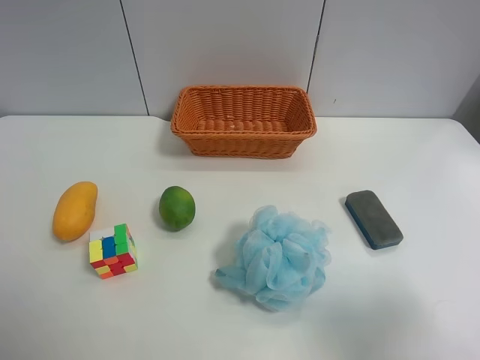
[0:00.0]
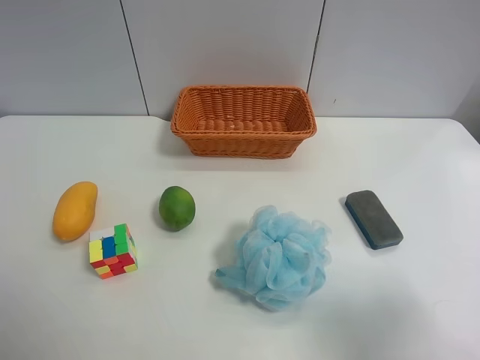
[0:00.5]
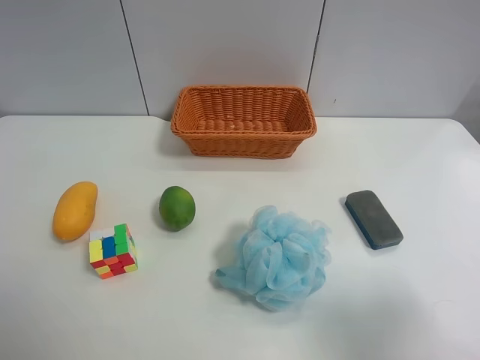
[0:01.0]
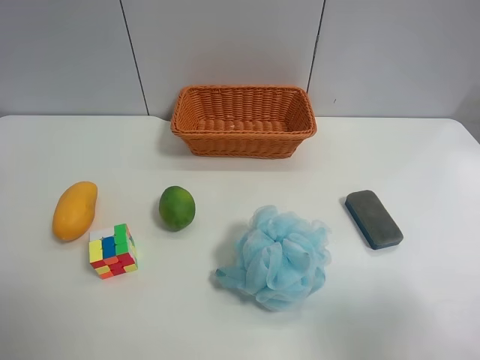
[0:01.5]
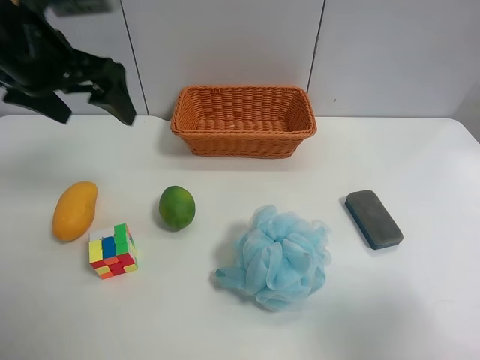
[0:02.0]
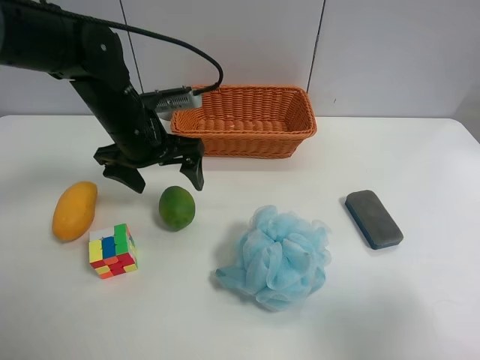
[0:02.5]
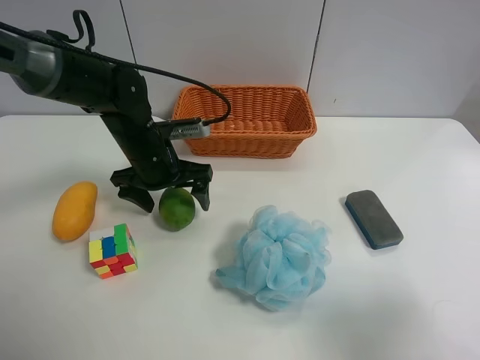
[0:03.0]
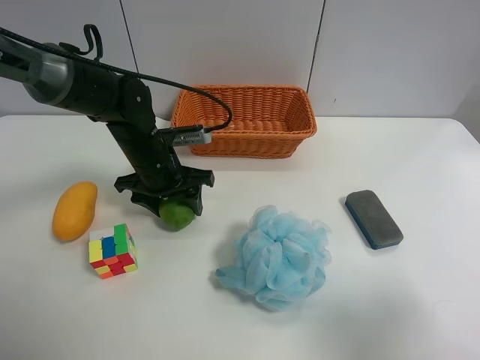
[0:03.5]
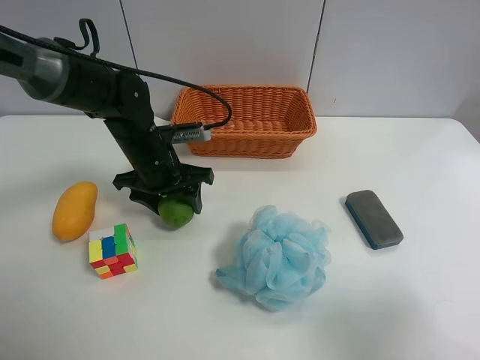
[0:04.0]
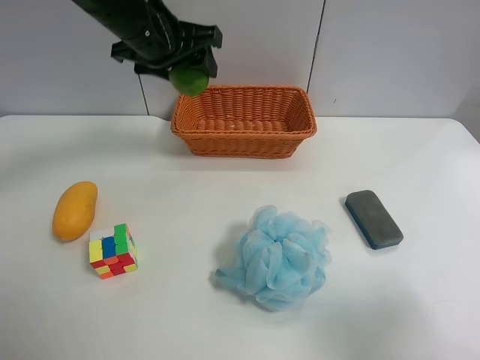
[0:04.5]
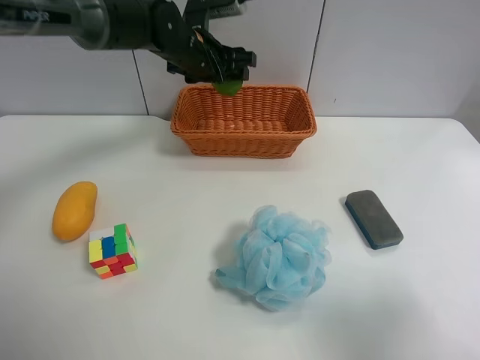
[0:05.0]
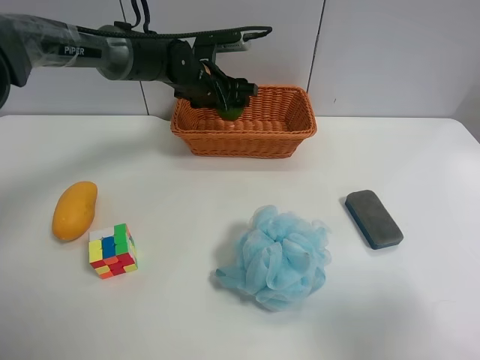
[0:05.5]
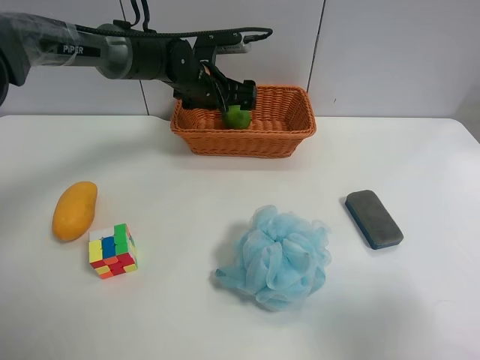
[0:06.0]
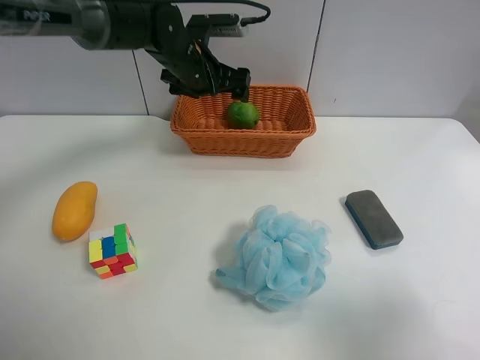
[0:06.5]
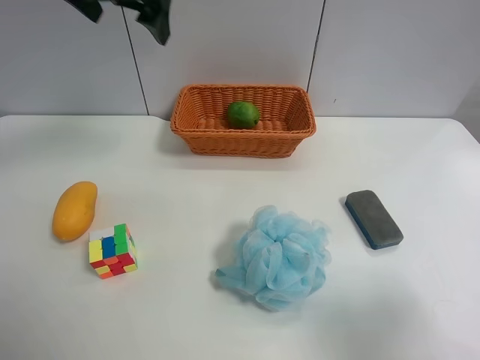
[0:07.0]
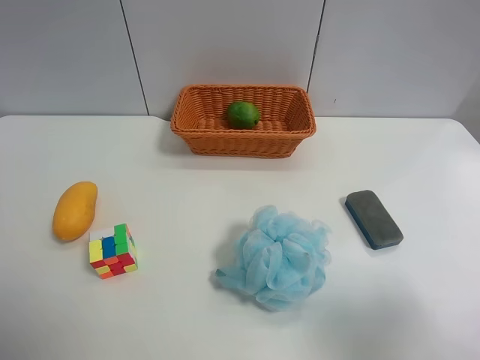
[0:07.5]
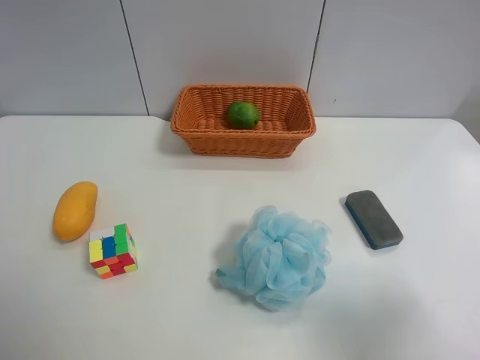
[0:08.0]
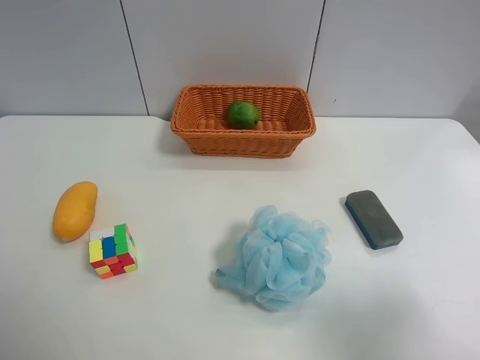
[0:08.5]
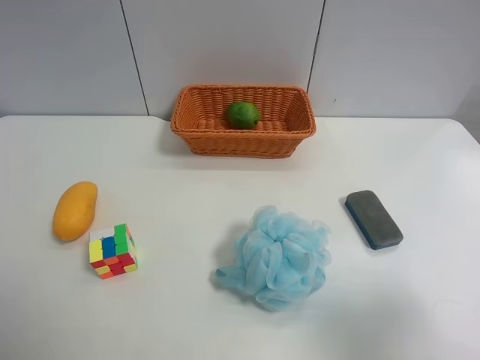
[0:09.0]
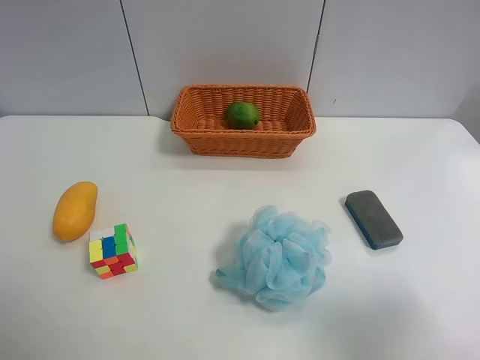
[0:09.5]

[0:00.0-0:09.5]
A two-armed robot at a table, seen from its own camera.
Task of the whole recording: Randomly grab green lemon or mangoes from the table and put them in a basket.
Step, 0:00.0 to 0:03.5: Grasp the Lemon with the left gripper.
Step, 0:04.0 to 0:06.5: Place the Lemon into the basket with the left gripper.
0:00.0 to 0:02.0: The left gripper heads forward, covering approximately 30 cm.
0:02.0 to 0:04.0: The left gripper moves downward and to the right, about 15 cm, and closes.
0:04.0 to 0:05.5: The left gripper shifts some 15 cm forward and to the right, and goes upward and returns, roughly 15 cm each way.
0:05.5 to 0:07.5: The left gripper moves backward, upward and to the left, approximately 50 cm, and opens up.

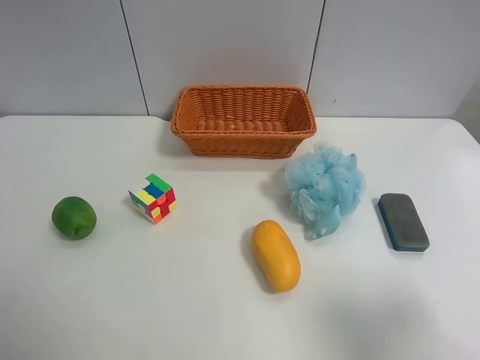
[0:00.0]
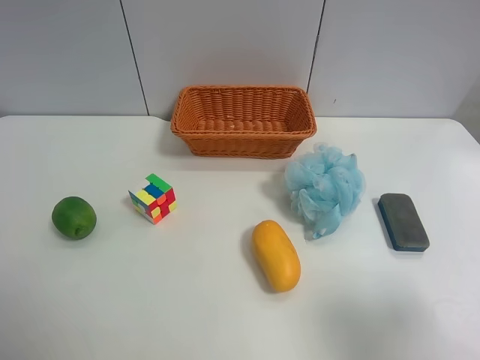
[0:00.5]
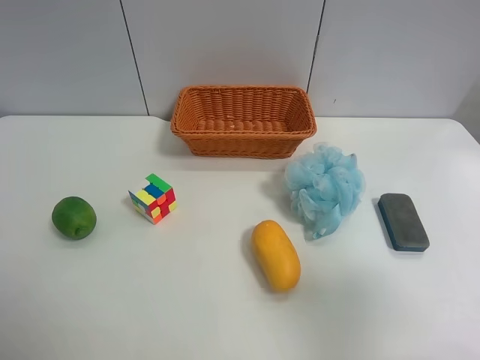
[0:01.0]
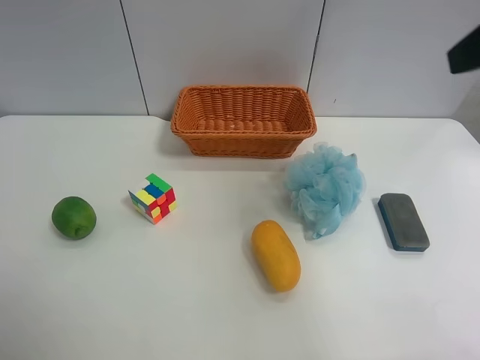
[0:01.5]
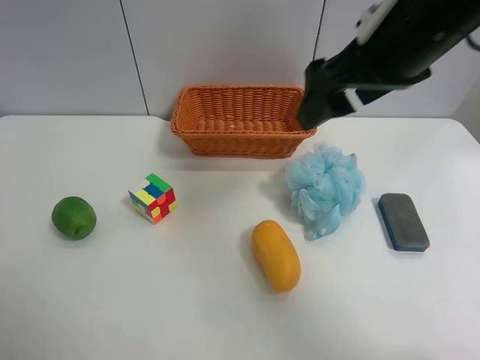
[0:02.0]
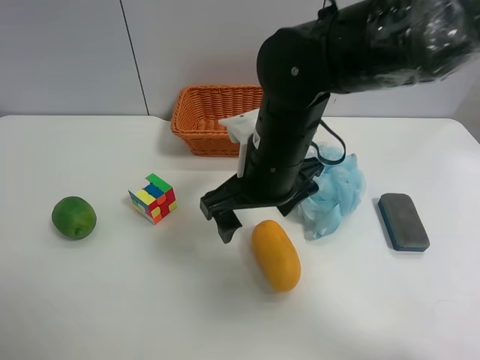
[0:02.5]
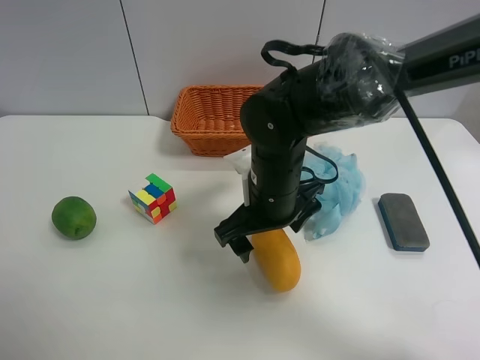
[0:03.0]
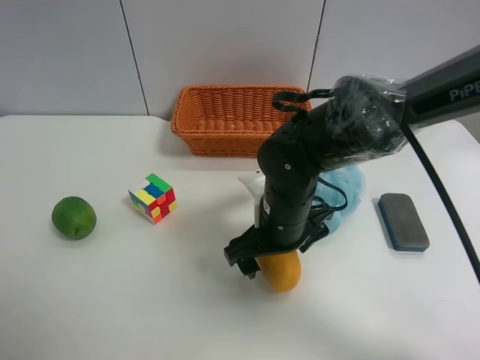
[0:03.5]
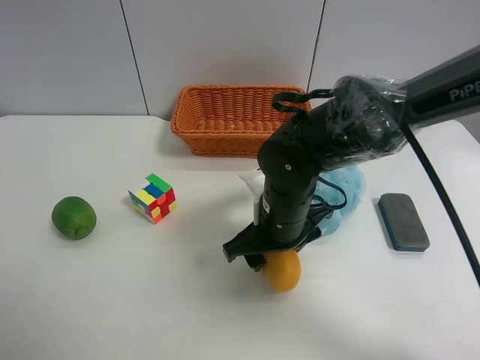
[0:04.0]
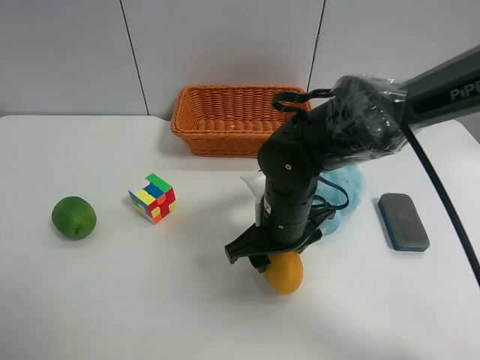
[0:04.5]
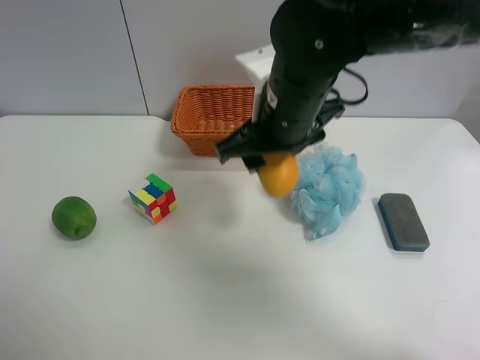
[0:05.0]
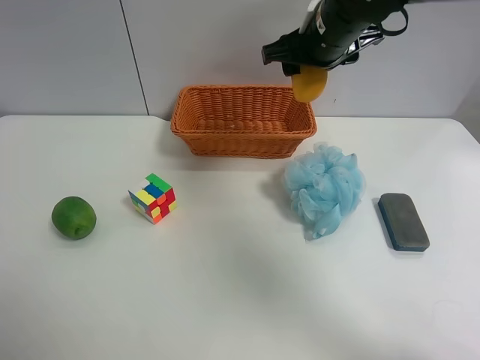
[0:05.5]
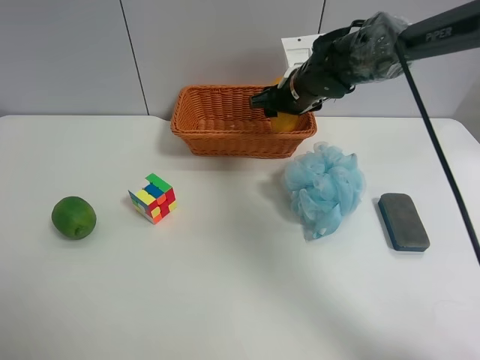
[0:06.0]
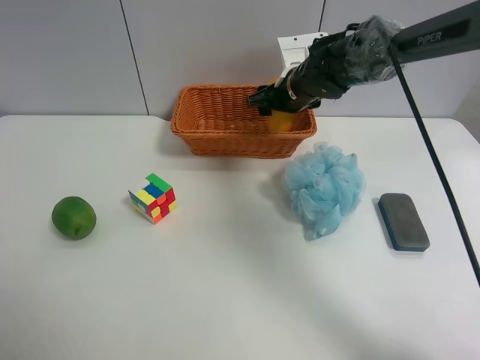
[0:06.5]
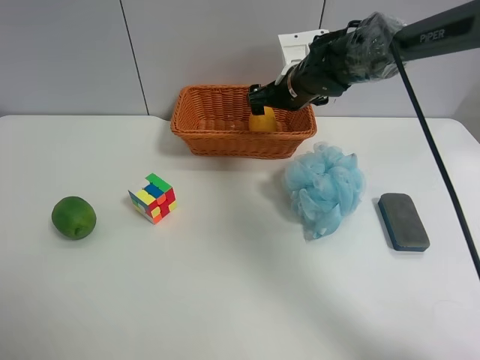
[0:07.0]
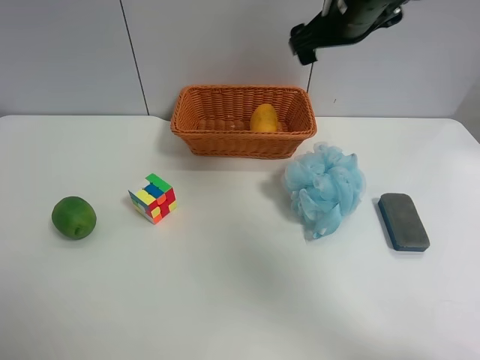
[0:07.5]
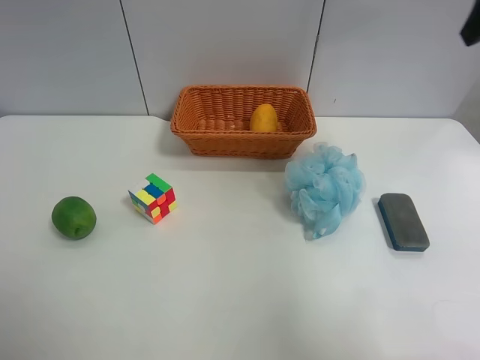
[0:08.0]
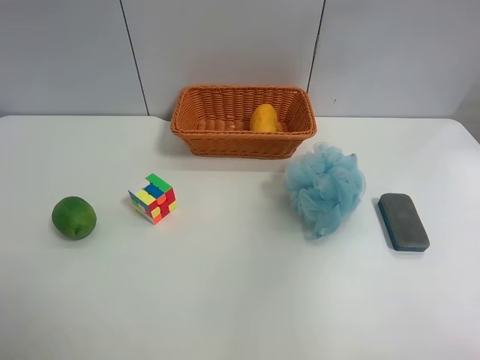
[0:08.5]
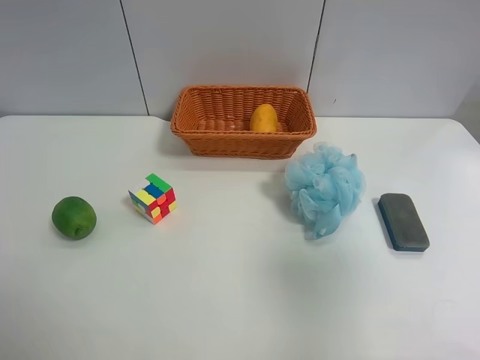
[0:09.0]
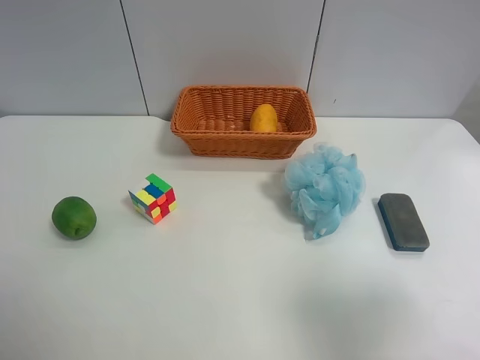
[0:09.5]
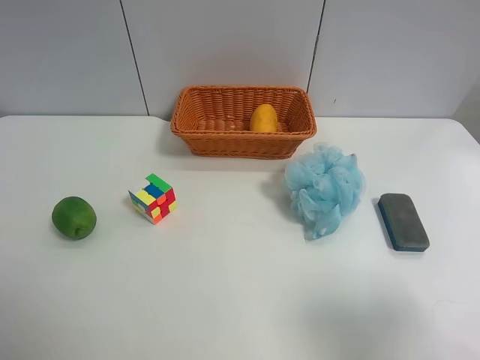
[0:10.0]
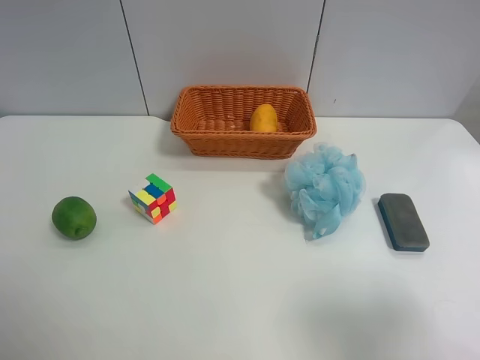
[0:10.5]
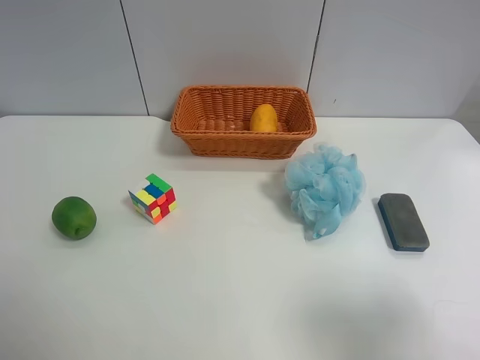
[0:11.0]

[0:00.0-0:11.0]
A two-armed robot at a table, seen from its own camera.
Task of the whole recording: Randomly grab green lemon or mangoes from the table and put them in a basket.
Step, 0:00.0 to 0:04.0: Grasp the mango with the right gripper.
Step, 0:04.5 to 0:07.0: Place the mango into the basket with the right gripper.
0:00.0 to 0:02.0: The right gripper moves forward and to the left, some 30 cm.
0:02.0 to 0:03.5: The right gripper moves downward, roughly 20 cm.
0:03.5 to 0:05.5: The right gripper goes approximately 20 cm upward, forward and to the right, and closes.
0:05.5 to 0:07.5: The right gripper moves approximately 10 cm downward and comes back, and opens up.
0:07.5 to 0:09.0: The right gripper heads backward, covering about 35 cm.
0:09.0 to 0:11.0: The right gripper goes roughly 5 cm backward and downward.
